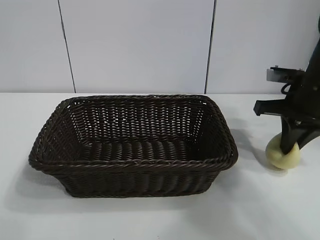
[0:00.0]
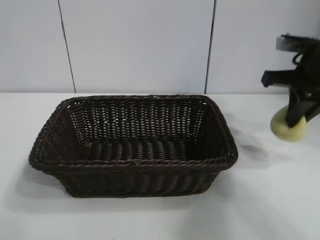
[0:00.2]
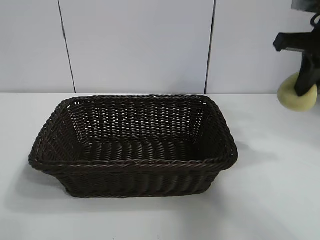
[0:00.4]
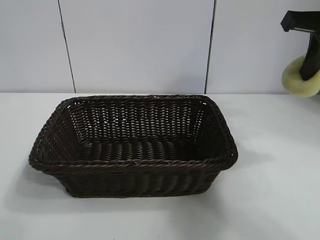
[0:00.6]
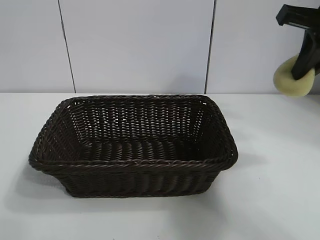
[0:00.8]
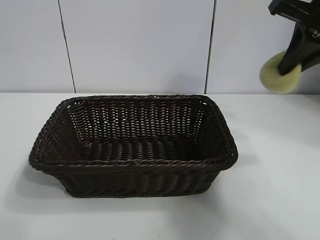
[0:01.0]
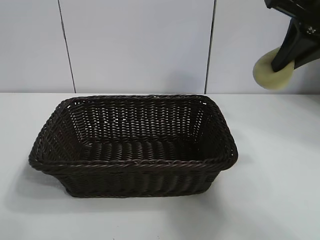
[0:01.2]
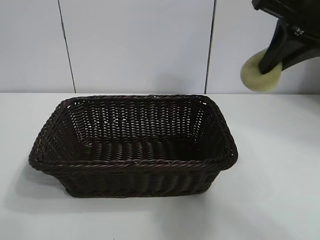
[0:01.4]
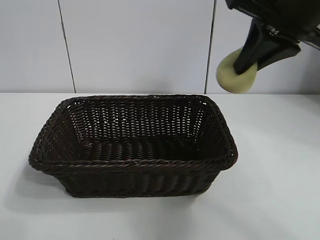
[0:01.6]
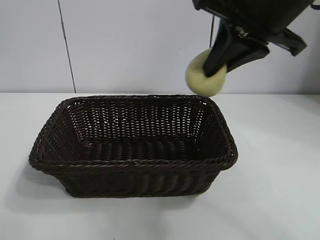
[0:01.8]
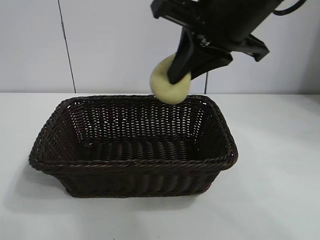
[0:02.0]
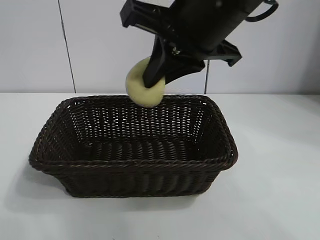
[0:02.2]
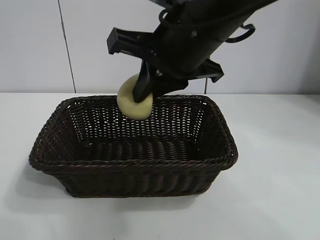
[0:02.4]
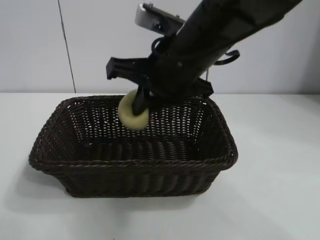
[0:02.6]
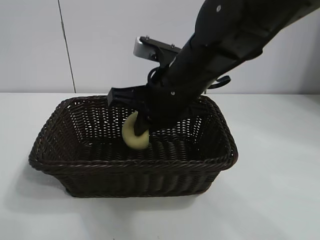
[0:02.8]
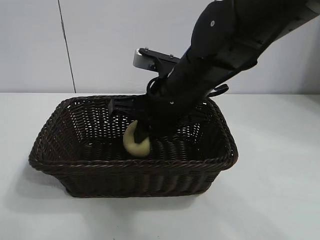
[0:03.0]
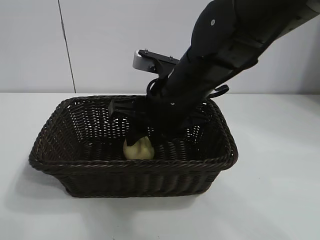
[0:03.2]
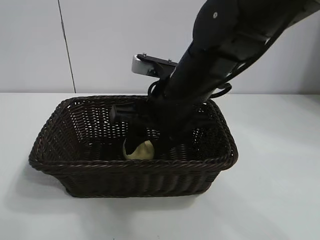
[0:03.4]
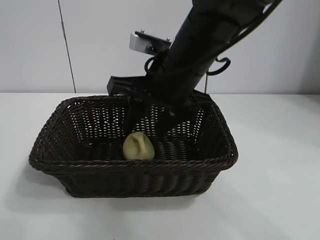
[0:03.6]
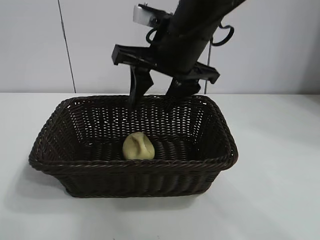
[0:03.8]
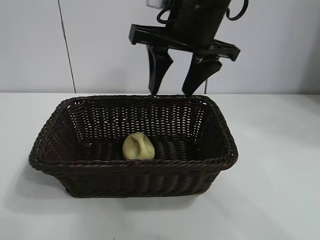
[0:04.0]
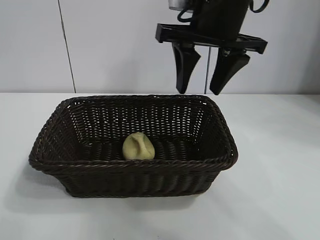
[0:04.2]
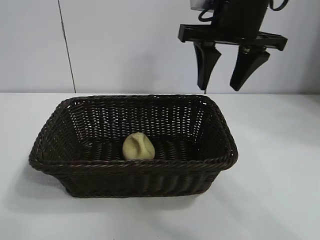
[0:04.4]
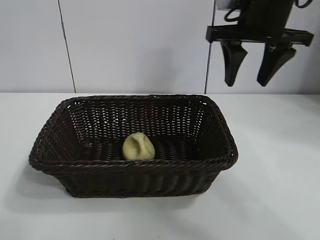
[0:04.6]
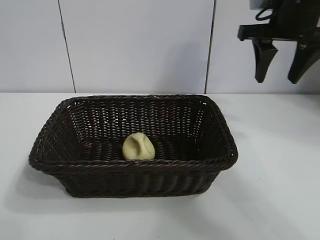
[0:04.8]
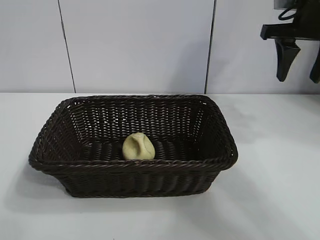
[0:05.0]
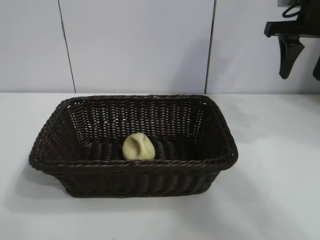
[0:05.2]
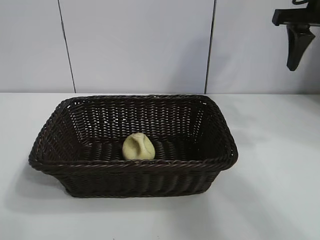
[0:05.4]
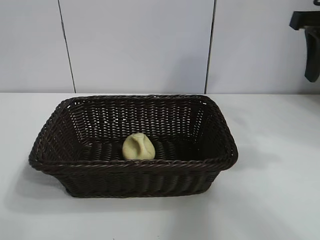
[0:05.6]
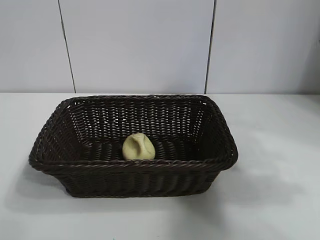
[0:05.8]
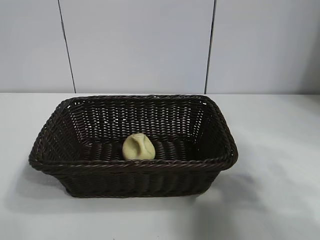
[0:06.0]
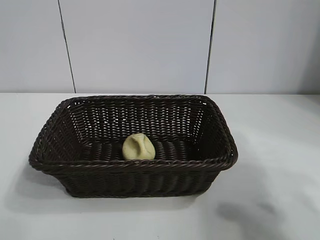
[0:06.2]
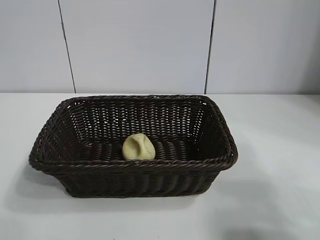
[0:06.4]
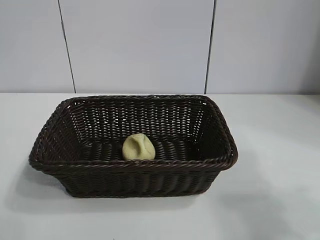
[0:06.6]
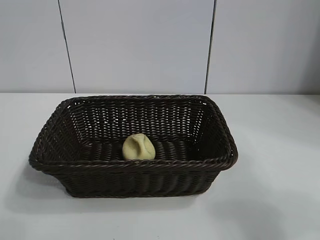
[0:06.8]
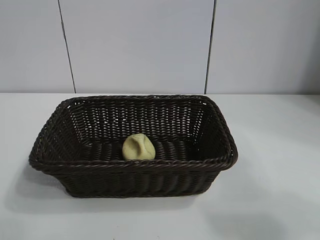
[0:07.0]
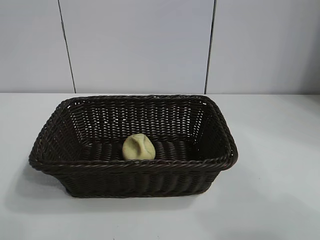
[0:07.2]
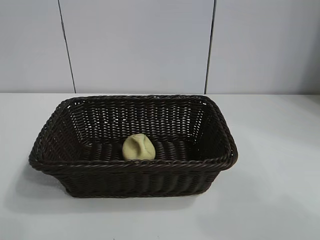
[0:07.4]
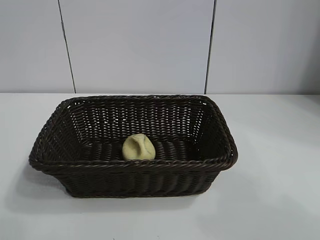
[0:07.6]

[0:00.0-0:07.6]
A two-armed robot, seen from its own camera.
Task of the whole recording: pick up the egg yolk pastry and put it into the basket.
Step, 0:00.0 to 0:03.6: Place the egg yolk pastry in the basket with right gripper.

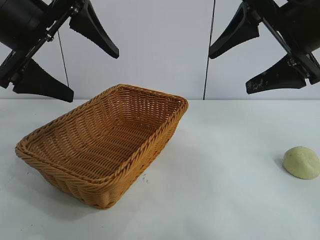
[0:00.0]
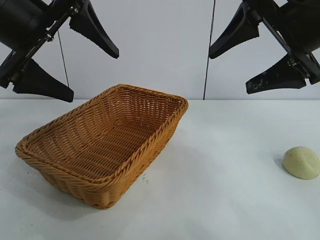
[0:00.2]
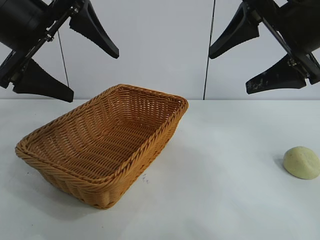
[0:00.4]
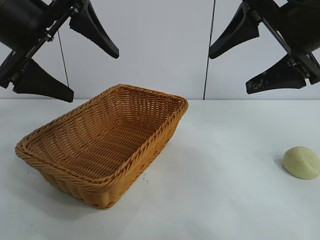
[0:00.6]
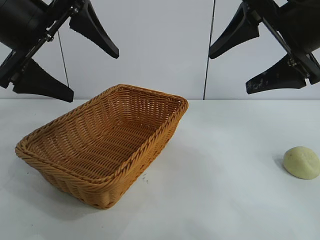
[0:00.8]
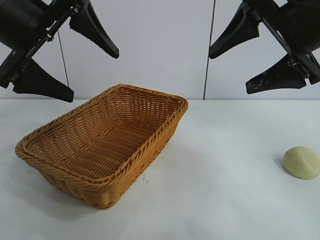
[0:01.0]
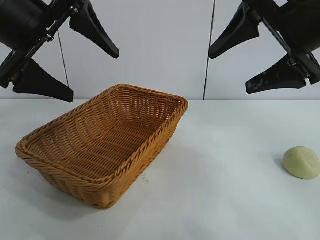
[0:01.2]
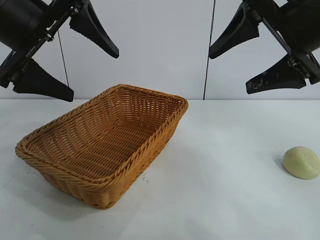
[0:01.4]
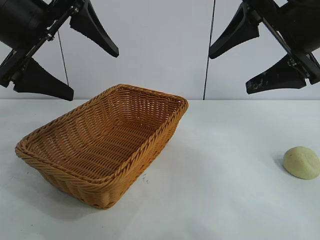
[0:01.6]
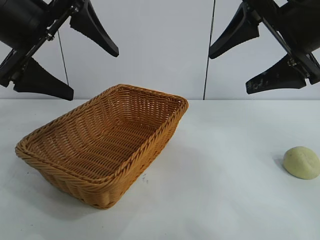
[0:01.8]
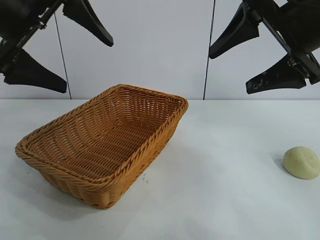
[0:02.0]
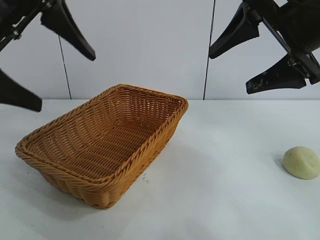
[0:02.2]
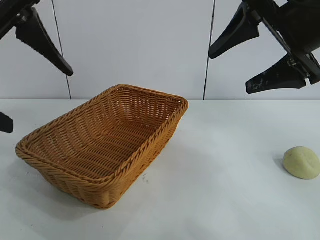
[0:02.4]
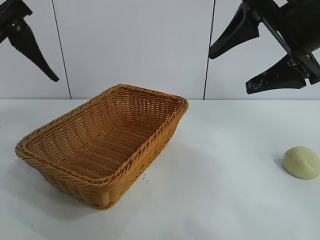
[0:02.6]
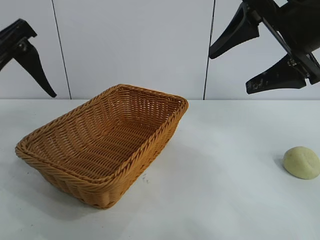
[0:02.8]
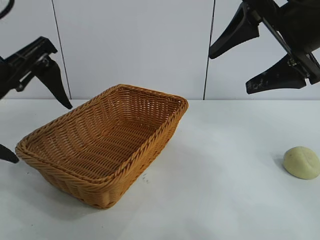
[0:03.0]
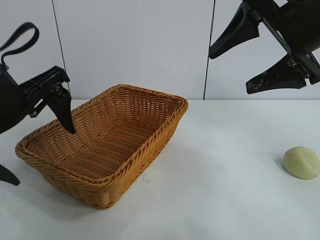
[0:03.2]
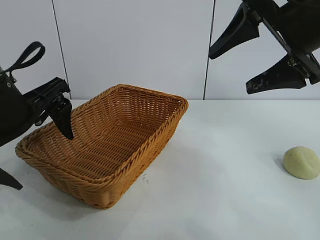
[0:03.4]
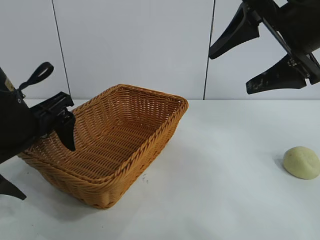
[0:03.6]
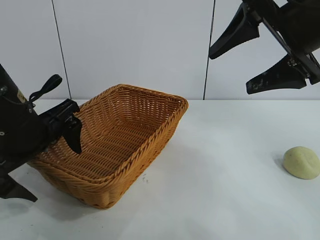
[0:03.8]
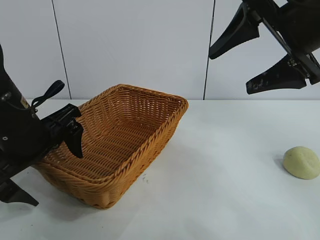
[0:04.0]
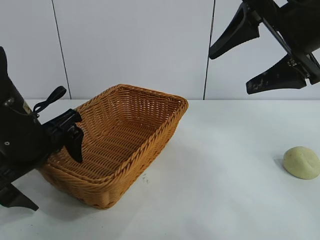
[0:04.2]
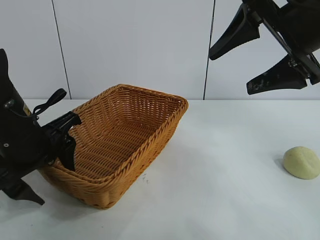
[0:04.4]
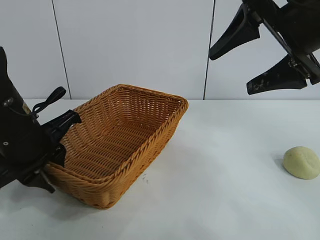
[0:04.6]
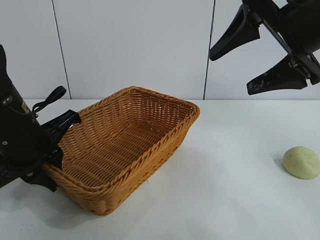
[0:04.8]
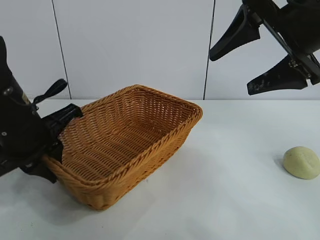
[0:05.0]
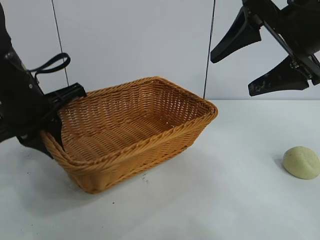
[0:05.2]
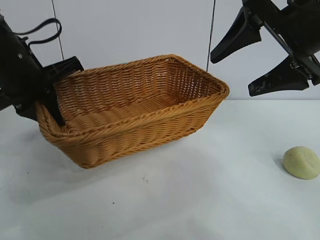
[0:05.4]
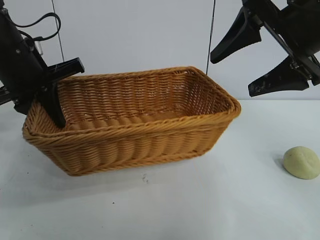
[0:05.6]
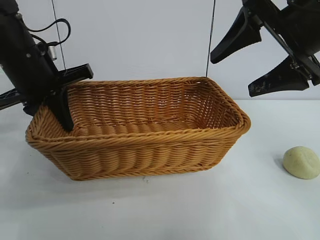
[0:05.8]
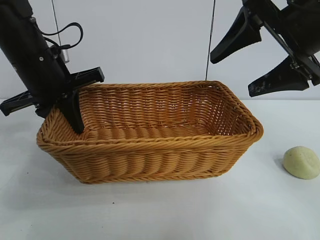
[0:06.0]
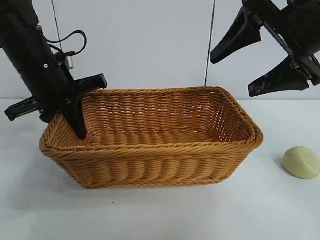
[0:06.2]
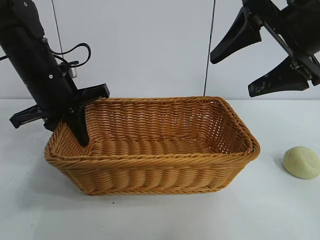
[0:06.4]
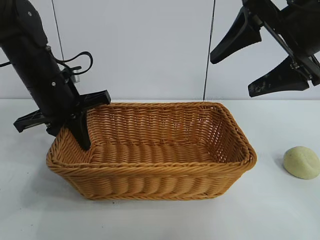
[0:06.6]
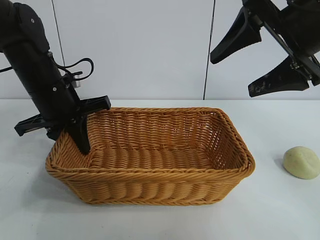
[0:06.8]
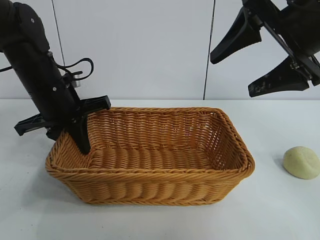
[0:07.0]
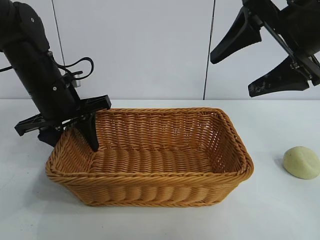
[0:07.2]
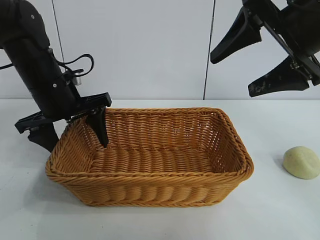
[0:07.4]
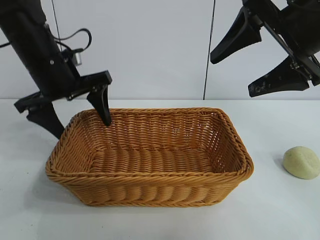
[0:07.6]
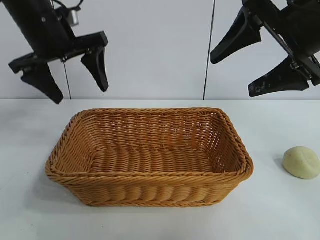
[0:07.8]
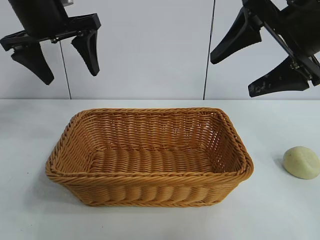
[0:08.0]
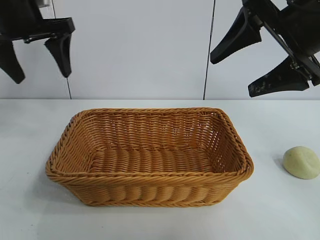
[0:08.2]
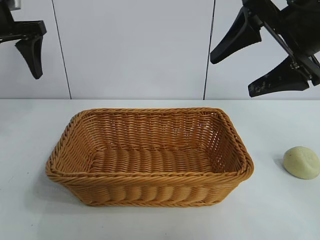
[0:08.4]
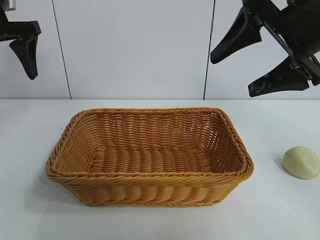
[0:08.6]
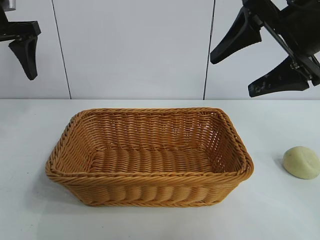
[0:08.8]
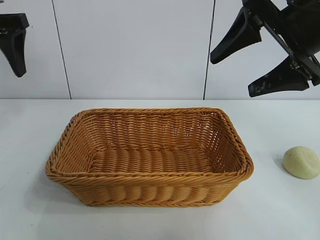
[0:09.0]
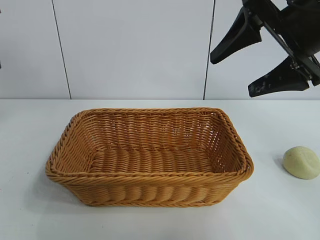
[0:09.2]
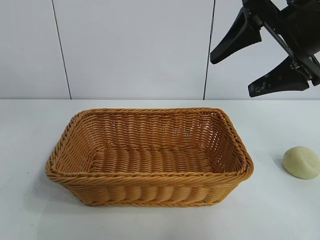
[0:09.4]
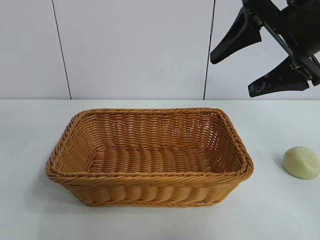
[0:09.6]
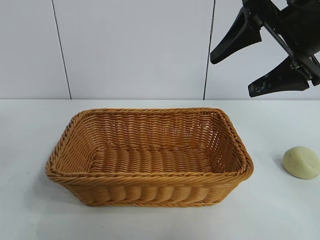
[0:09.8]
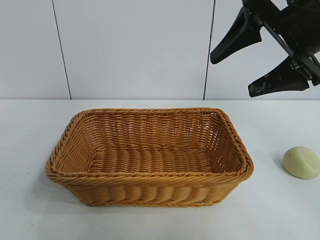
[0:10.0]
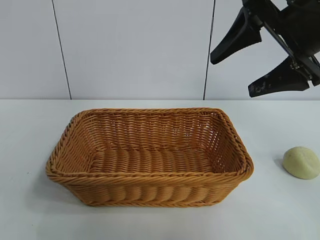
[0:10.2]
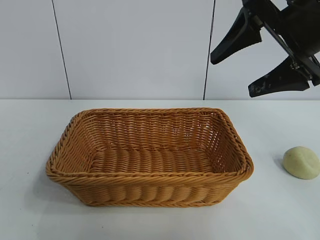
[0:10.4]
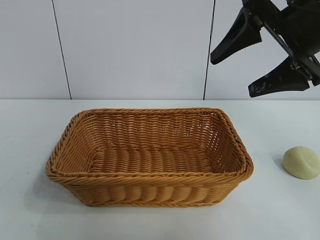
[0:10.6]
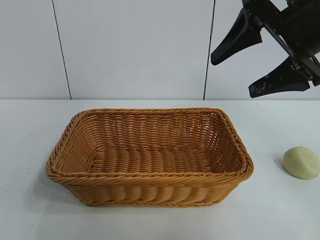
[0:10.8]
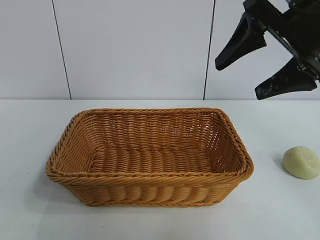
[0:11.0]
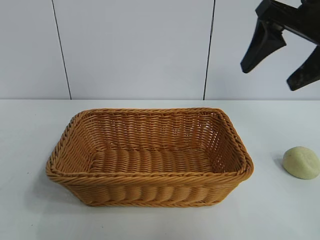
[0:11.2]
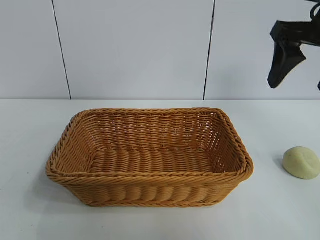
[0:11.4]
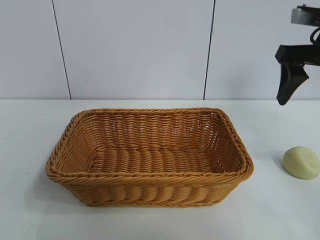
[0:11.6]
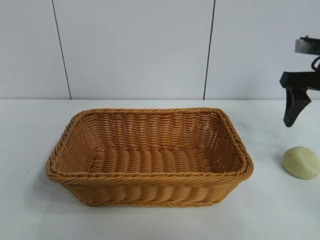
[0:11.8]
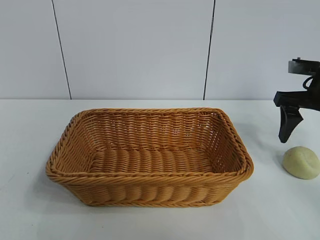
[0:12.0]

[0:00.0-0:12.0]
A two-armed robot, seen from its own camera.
Task of the whole recording: pick up the egg yolk pastry and put it into the basket.
Step, 0:01.6 to 0:04.6: Grasp the basket with left gripper.
Step, 0:04.8 to 0:07.2: Place the basket in the center of view with left gripper.

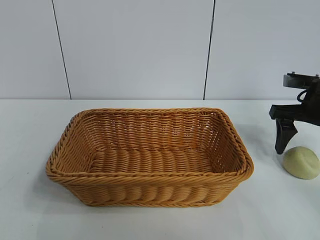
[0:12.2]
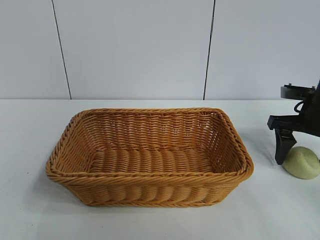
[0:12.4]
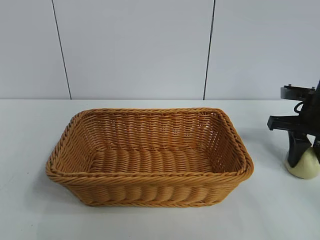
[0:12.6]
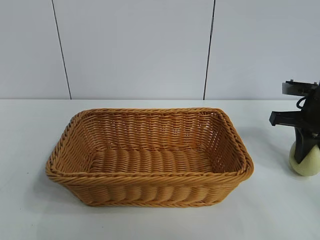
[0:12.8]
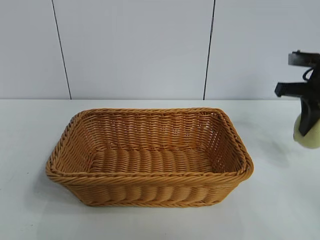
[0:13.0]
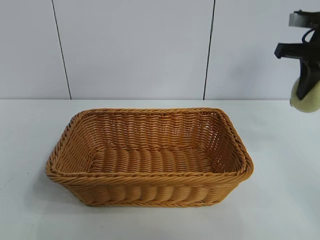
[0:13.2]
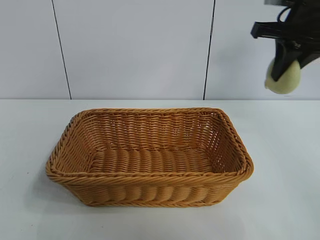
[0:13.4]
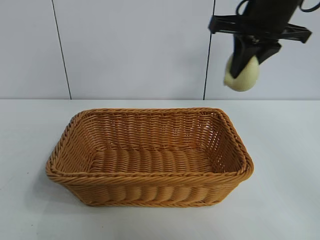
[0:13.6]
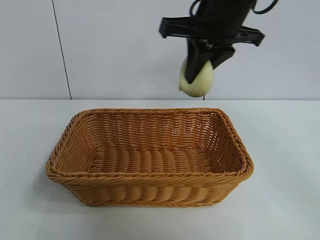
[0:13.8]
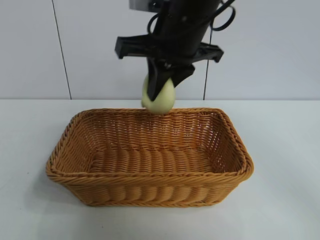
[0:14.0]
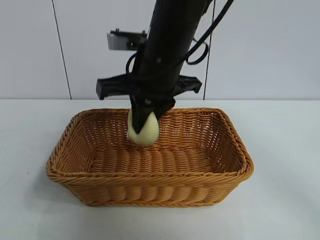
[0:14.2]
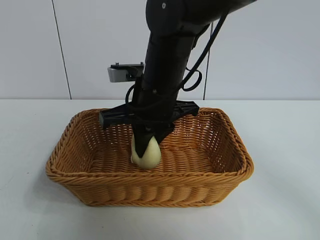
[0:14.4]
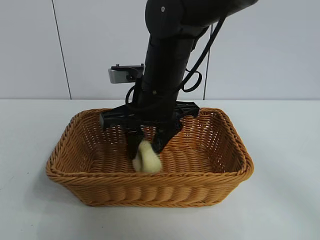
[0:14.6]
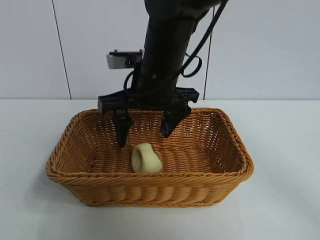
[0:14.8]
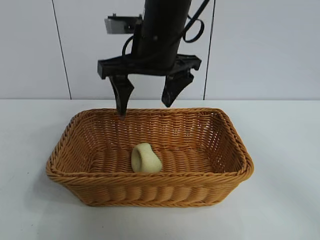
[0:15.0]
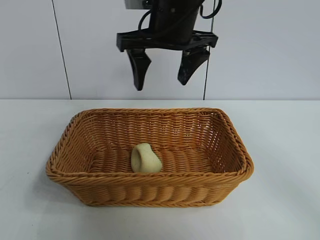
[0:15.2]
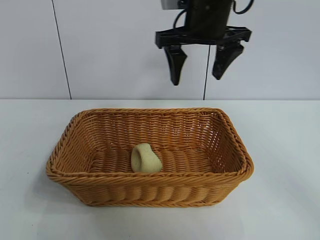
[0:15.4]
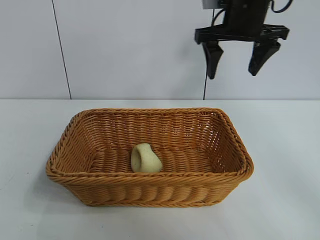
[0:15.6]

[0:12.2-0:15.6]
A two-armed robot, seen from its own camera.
Task of the whole recording: pick up the egg yolk pastry and put it into the basket.
Step, 0:12.8 to 0:14.6: Place the egg yolk pastry in the basket with right gripper.
